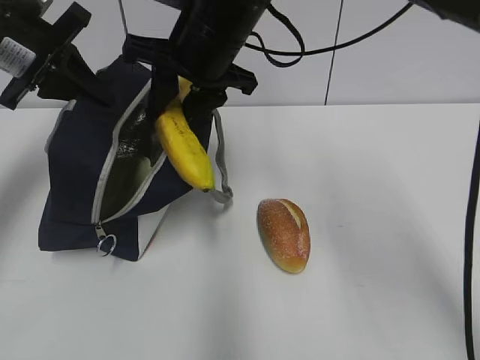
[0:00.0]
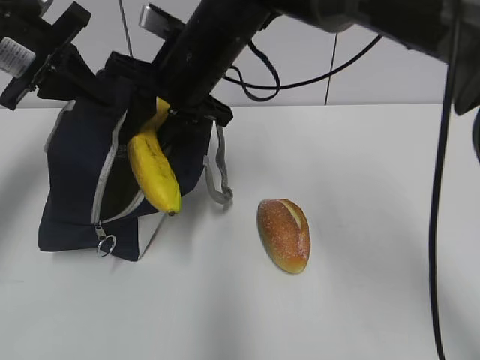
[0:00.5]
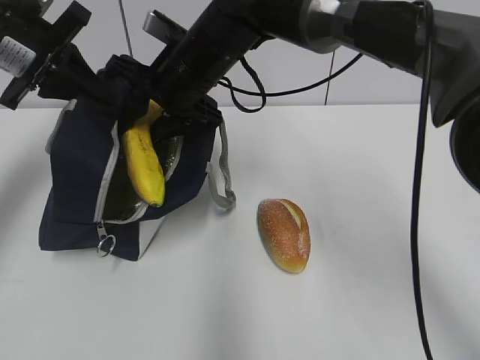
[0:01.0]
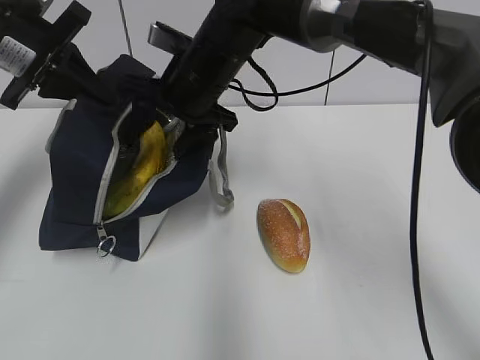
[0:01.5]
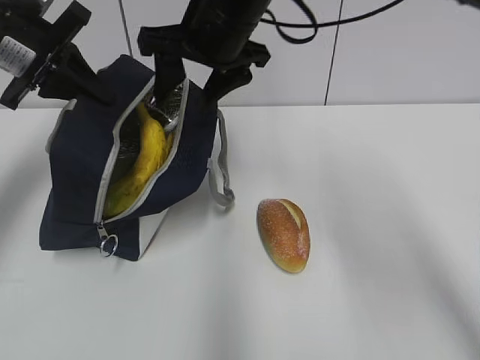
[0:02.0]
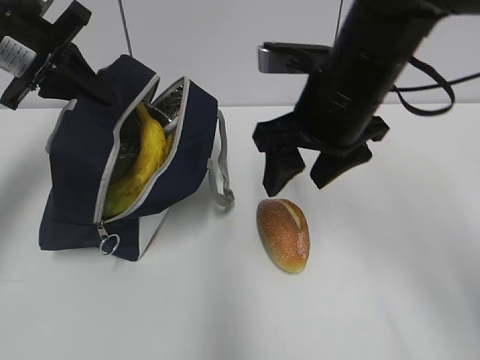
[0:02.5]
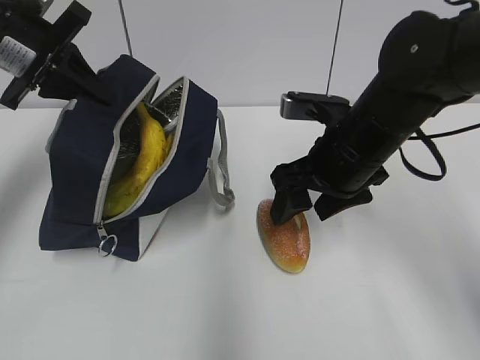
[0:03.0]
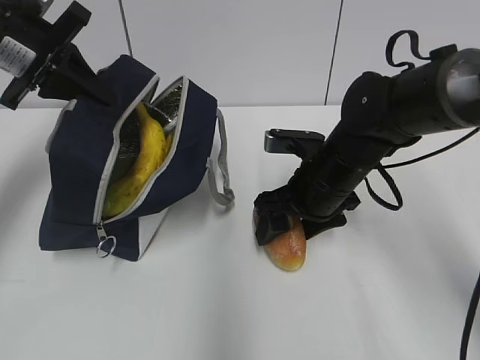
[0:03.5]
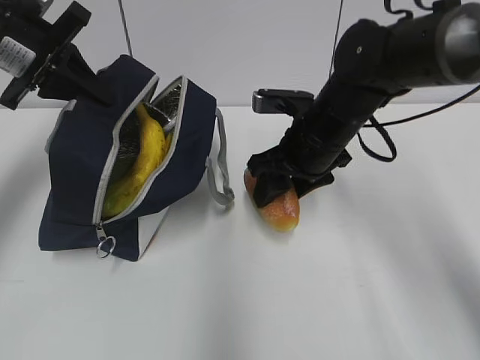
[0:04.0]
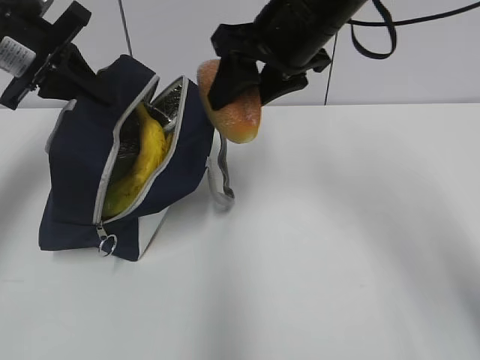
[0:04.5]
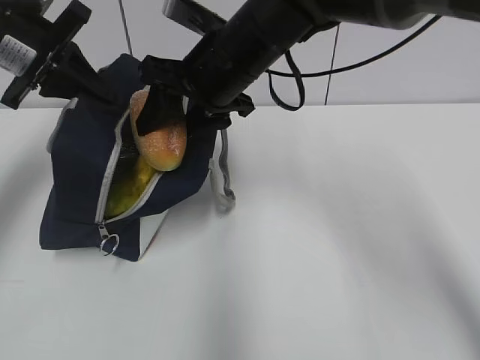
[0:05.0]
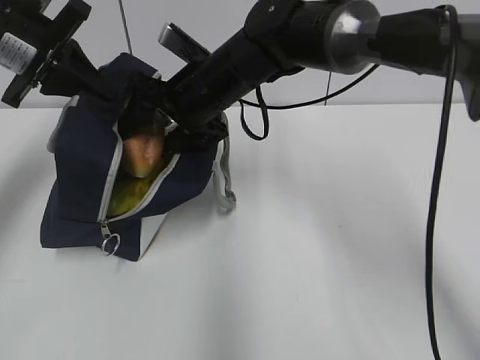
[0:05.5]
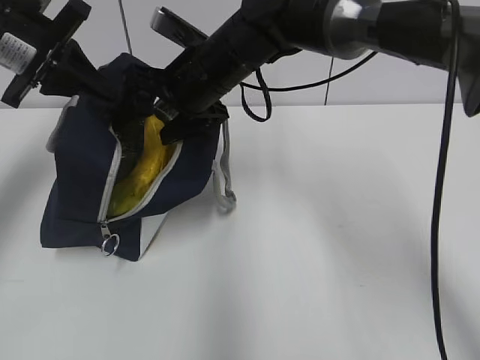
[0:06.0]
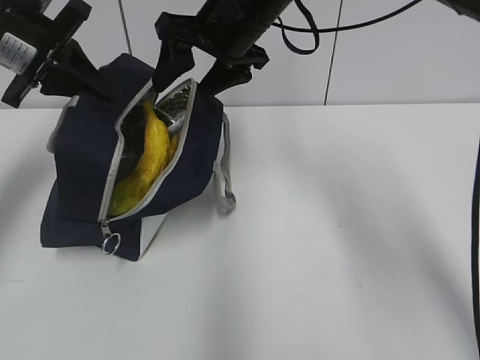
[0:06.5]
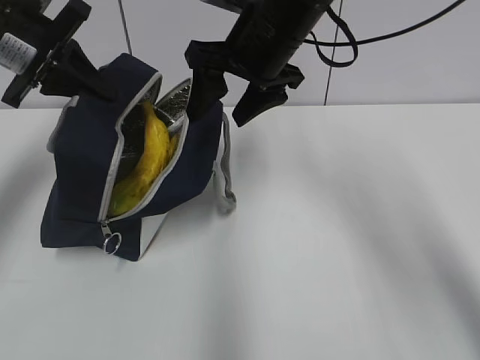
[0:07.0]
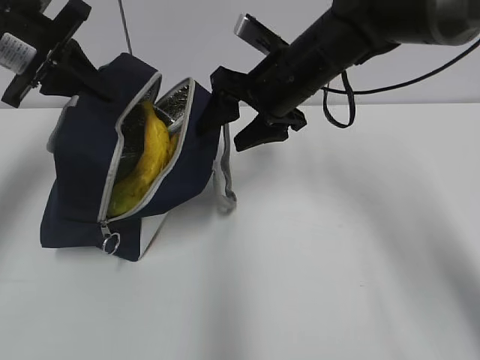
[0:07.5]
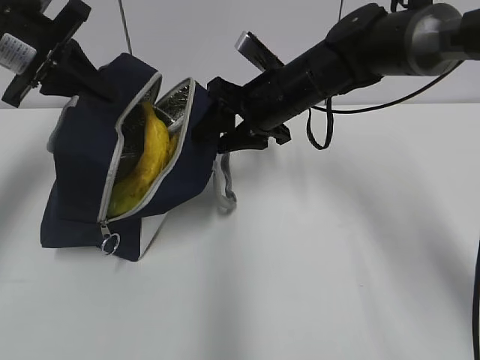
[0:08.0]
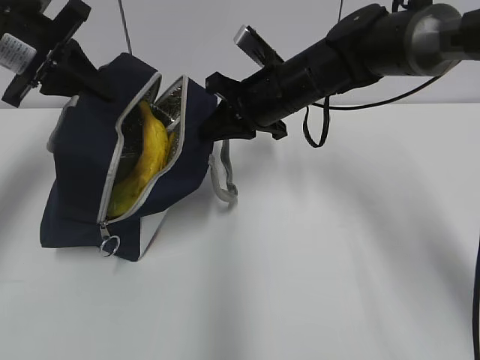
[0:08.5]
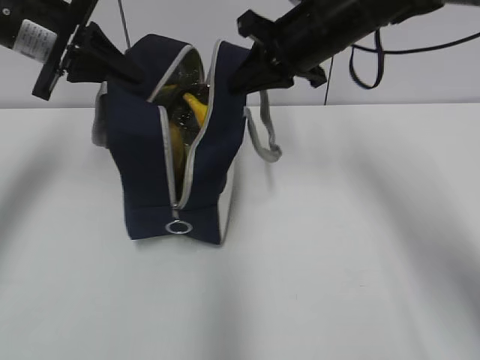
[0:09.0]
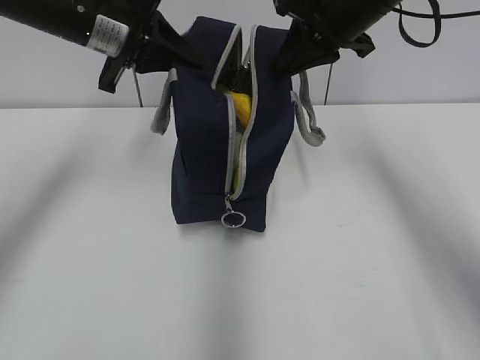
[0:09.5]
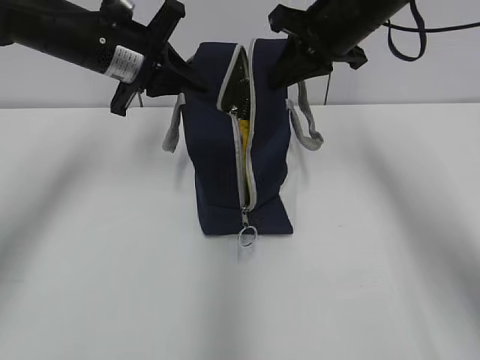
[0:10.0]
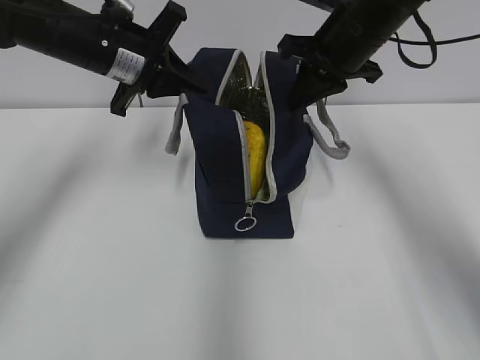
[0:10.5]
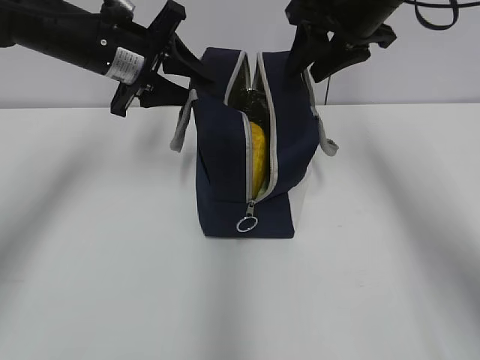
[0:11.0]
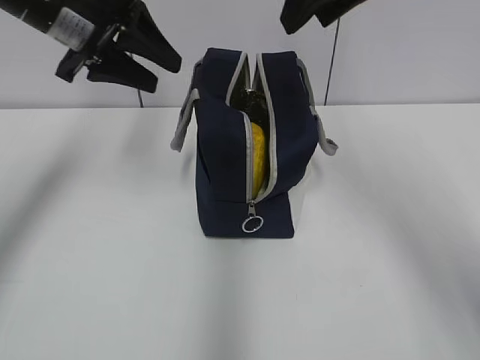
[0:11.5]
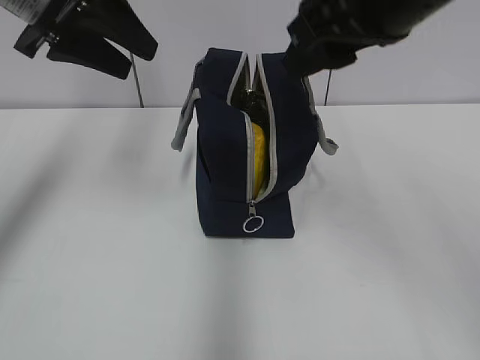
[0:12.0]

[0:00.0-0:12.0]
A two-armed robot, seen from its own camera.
Step, 0:02.0 to 0:03.0: Grab the bread with your right hand.
Step, 0:03.5 to 0:06.0: Place it into the bag with your right hand.
Step, 0:06.5 to 0:08.5: Grab the lunch bag with your right hand.
Step, 0:09.0 to 0:10.5: Move the lunch bag to the right.
0:00.0 to 0:02.0: The right gripper opens.
0:02.0 to 0:04.0: The right gripper travels downward and to the right by approximately 15 cm.
0:04.0 to 0:06.0: The right gripper is displaced to the left and upward by some 15 cm.
0:06.0 to 0:08.0: The right gripper heads to the right, covering roughly 10 cm.
0:08.0 to 0:10.0: The left gripper goes some 10 cm to the right, while the right gripper goes approximately 10 cm upward and to the right, and closes its fingers.
0:10.0 to 0:12.0: The left gripper moves upward and backward, approximately 10 cm, and opens, while the right gripper heads backward and upward, covering some 15 cm, and opens its fingers.

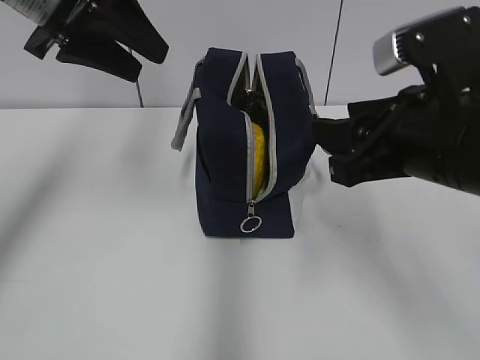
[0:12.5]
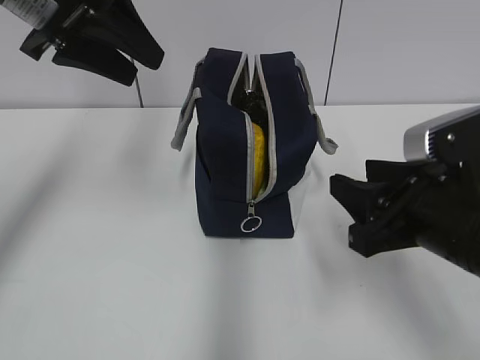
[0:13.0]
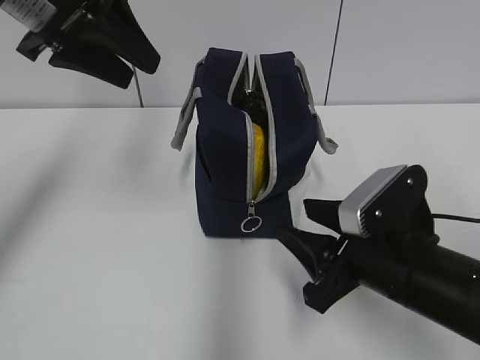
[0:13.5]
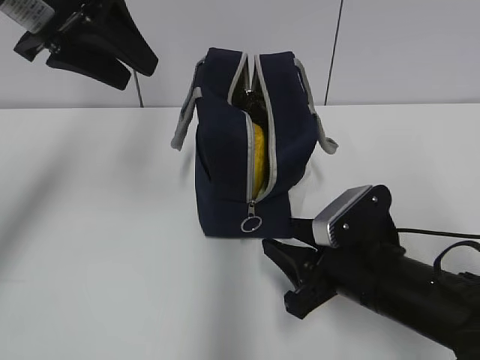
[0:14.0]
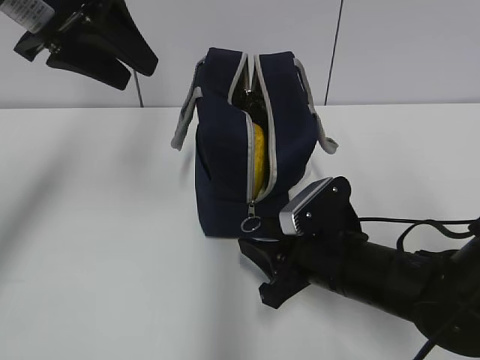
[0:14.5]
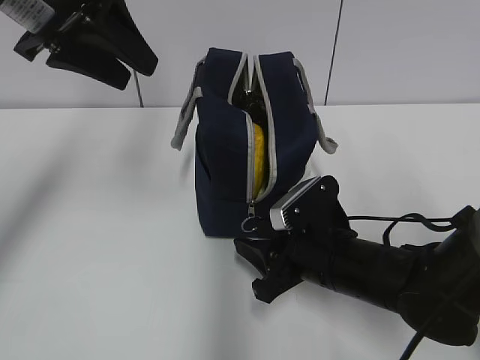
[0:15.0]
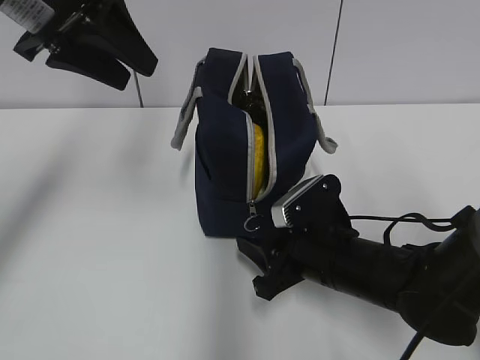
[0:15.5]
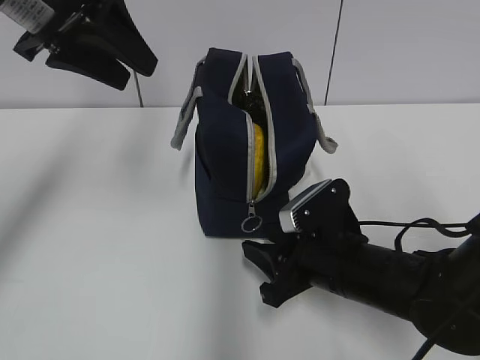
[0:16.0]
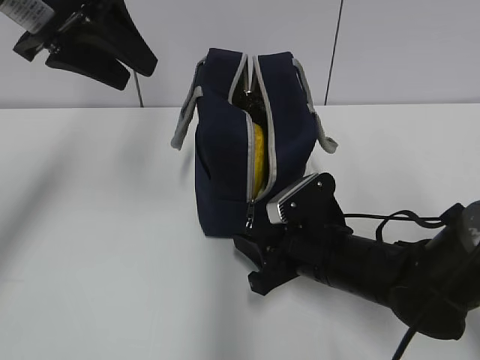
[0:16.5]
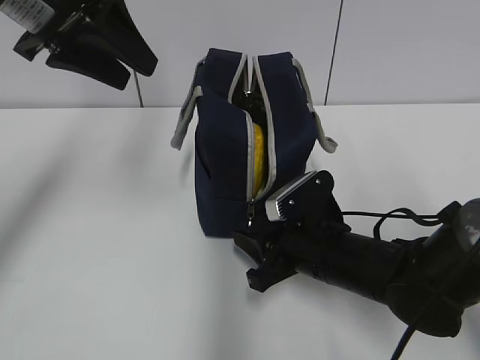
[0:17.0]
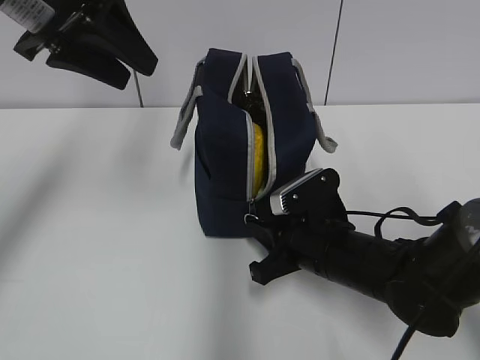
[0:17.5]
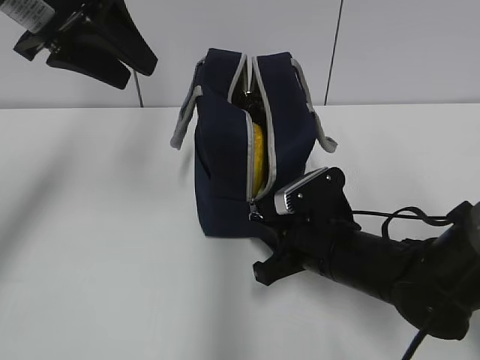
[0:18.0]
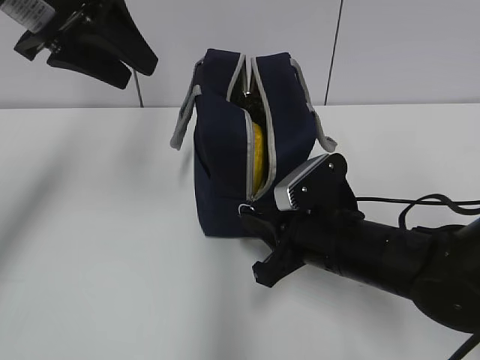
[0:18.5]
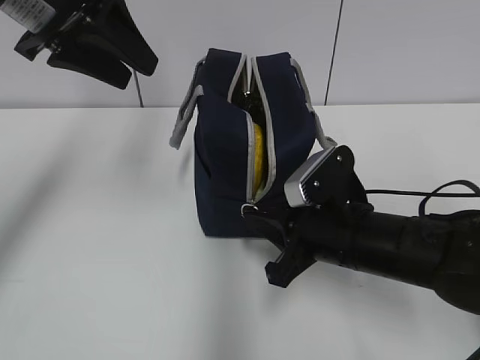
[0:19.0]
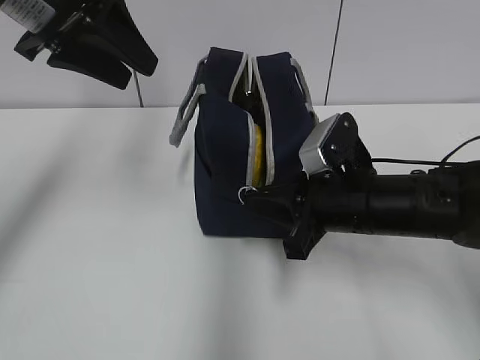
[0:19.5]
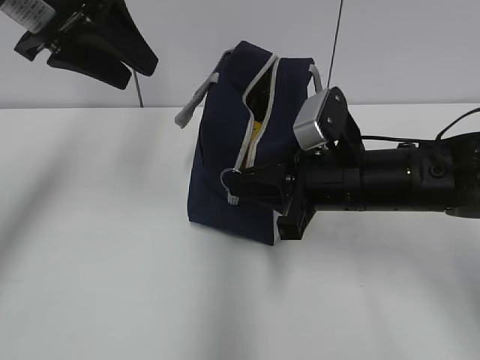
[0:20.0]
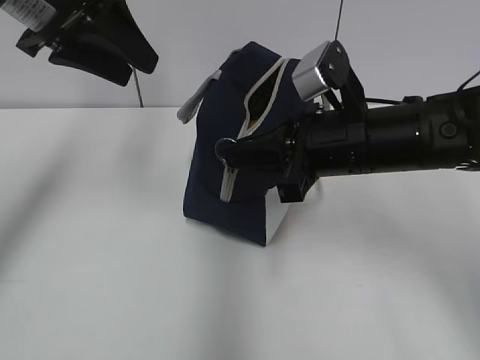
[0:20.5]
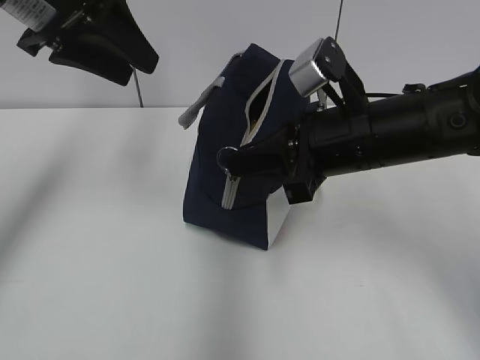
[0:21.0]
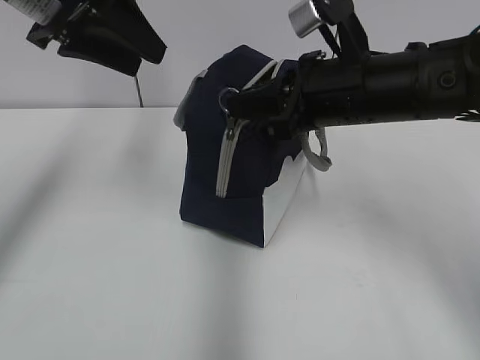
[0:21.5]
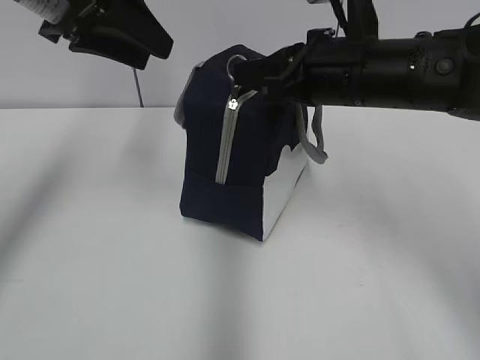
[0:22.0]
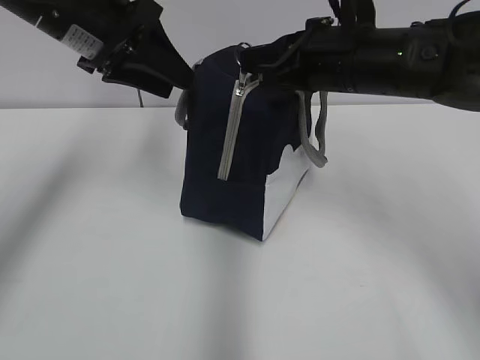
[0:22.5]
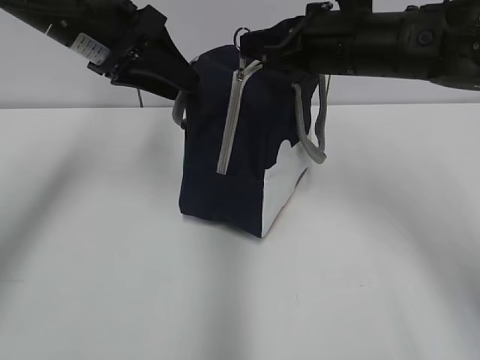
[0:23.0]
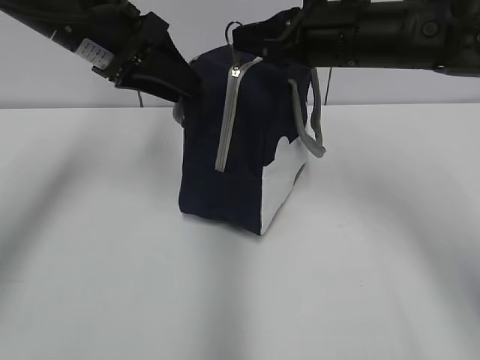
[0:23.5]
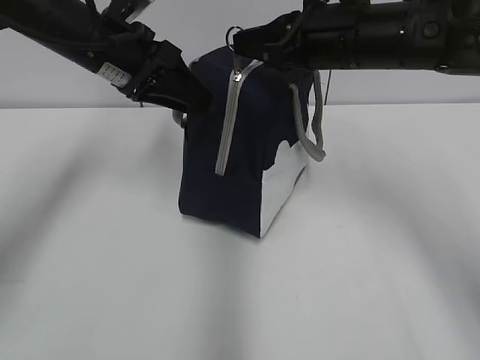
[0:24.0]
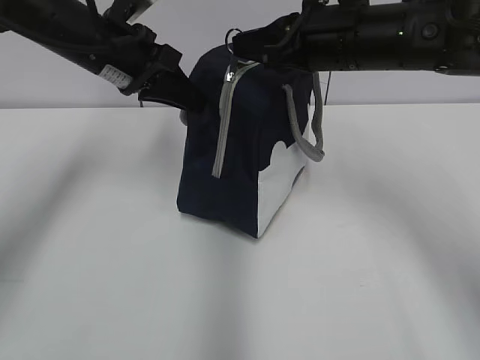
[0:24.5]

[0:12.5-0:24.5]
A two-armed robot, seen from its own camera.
Step, 0:12.5 to 0:24.0: Grab the lunch bag with your left hand.
0:12.5 to 0:14.5: The right gripper travels downward by about 15 cm.
0:14.5 to 0:16.5: There are only small adjustments of the grippers.
0:16.5 to 0:18.5: The right gripper closes.
0:18.5 to 0:20.5: The right gripper shifts approximately 10 cm upward.
0:20.5 to 0:22.5: The right gripper travels forward and upward by approximately 10 cm. Meanwhile the left gripper moves some 5 cm.
0:22.5 to 0:24.5: The left gripper moves roughly 5 cm, and closes its fingers.

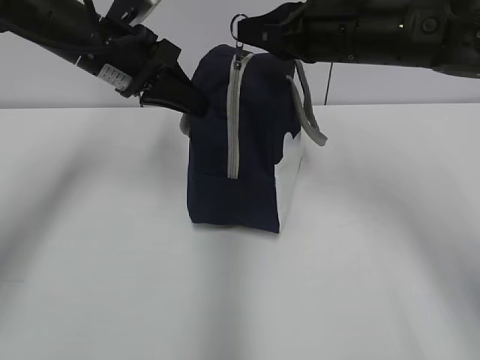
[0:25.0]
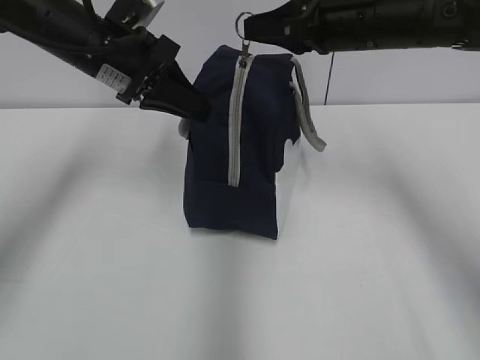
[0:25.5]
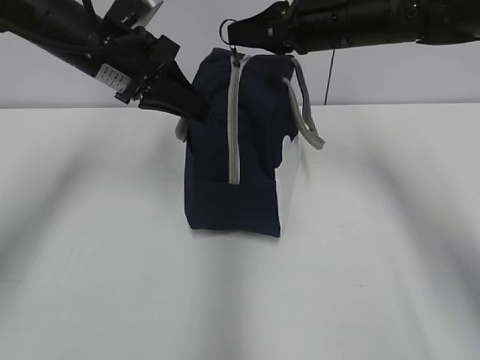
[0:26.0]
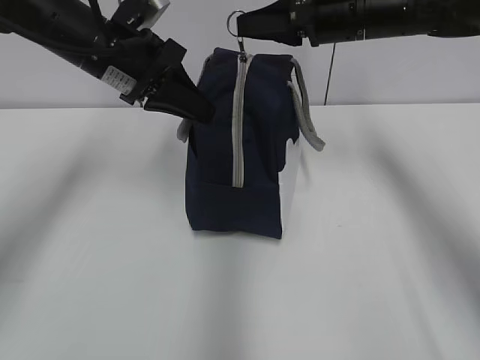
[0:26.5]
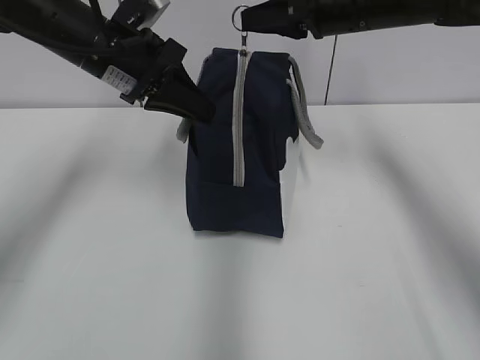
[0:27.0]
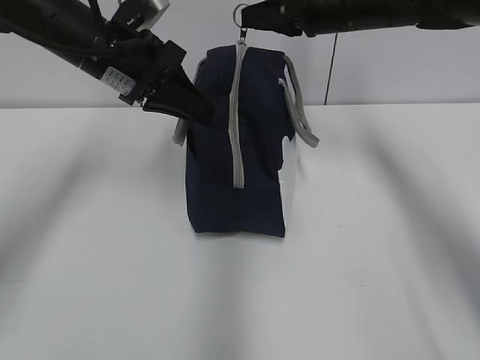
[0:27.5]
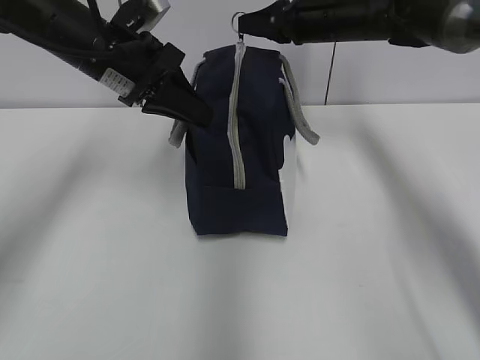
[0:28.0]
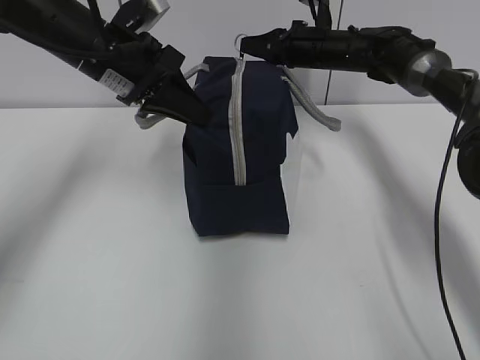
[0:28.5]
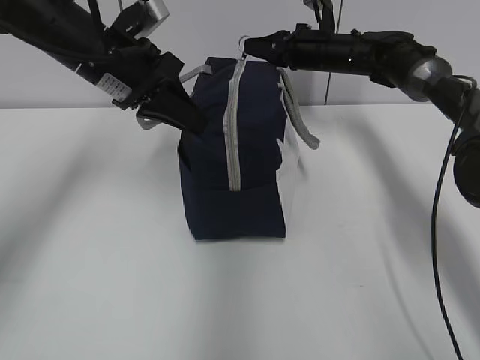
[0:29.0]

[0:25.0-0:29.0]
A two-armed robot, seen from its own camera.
0:25.0 to 0:27.0: The right gripper heads forward, covering some 5 cm.
0:27.0 to 0:29.0: The right gripper shifts about 20 cm forward and downward.
